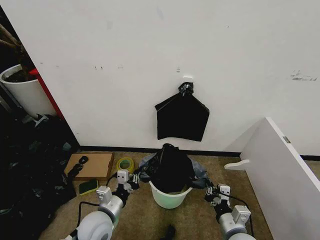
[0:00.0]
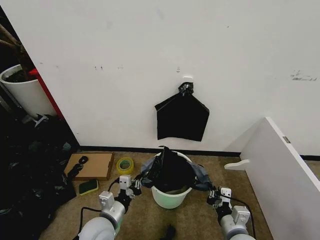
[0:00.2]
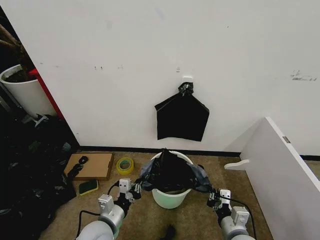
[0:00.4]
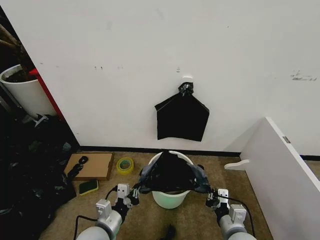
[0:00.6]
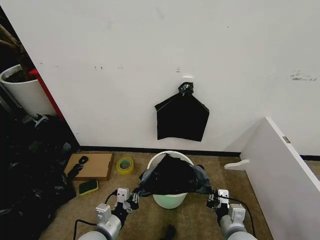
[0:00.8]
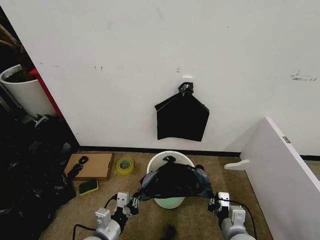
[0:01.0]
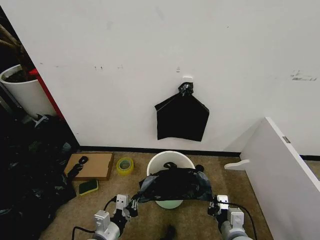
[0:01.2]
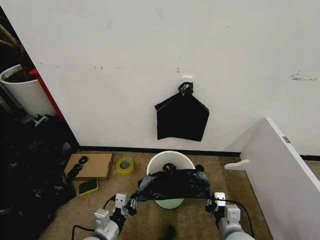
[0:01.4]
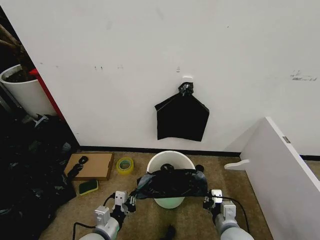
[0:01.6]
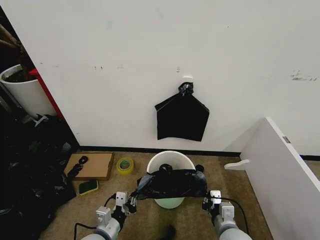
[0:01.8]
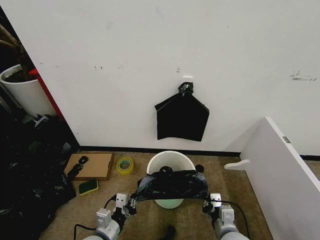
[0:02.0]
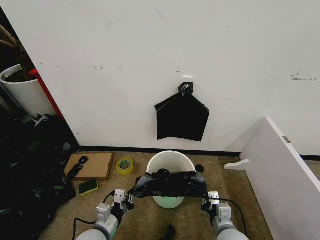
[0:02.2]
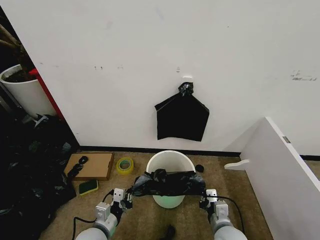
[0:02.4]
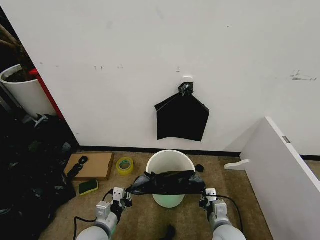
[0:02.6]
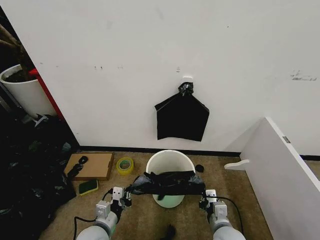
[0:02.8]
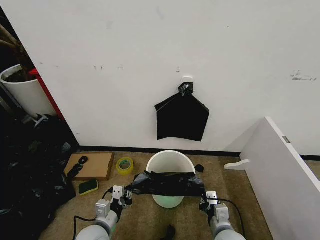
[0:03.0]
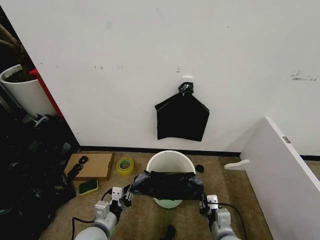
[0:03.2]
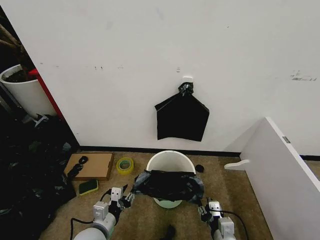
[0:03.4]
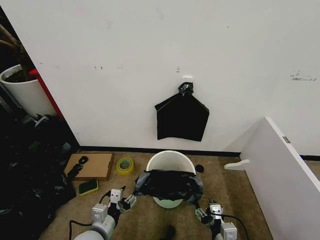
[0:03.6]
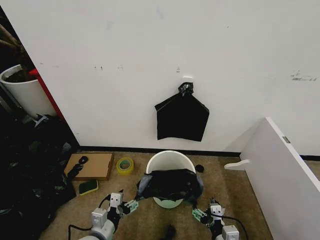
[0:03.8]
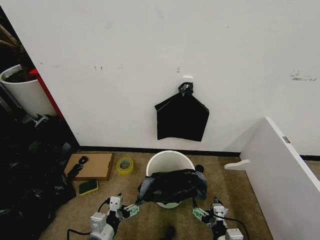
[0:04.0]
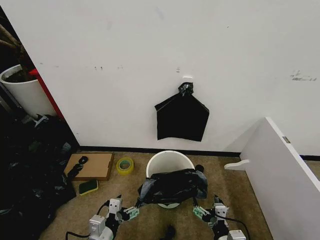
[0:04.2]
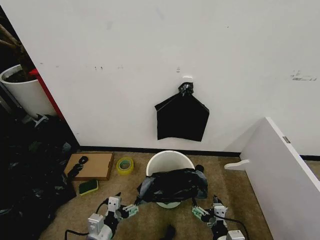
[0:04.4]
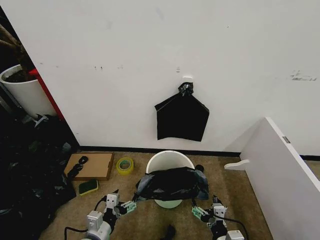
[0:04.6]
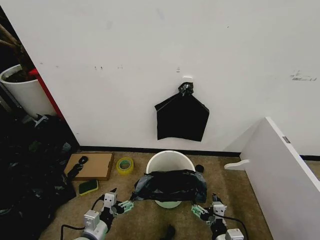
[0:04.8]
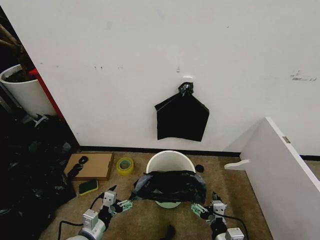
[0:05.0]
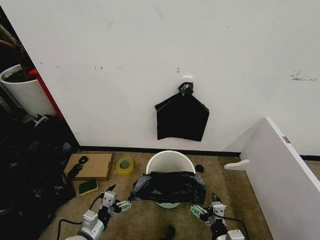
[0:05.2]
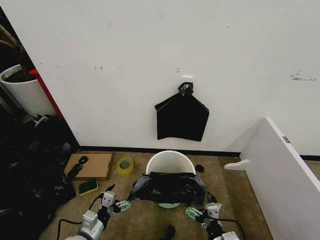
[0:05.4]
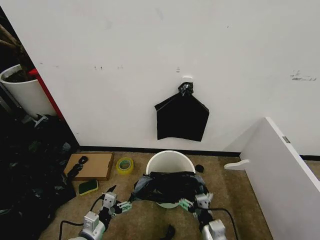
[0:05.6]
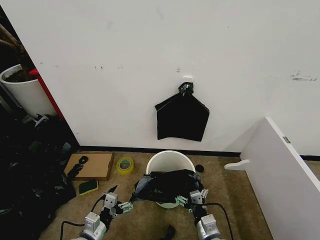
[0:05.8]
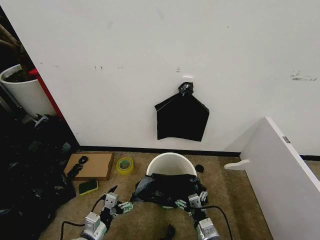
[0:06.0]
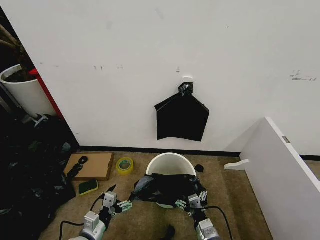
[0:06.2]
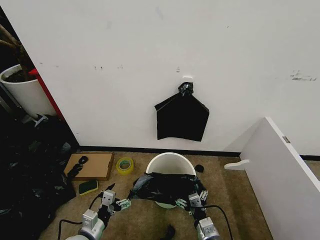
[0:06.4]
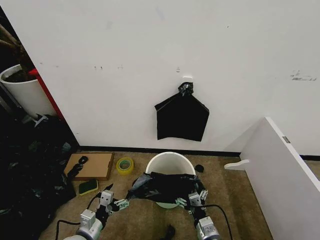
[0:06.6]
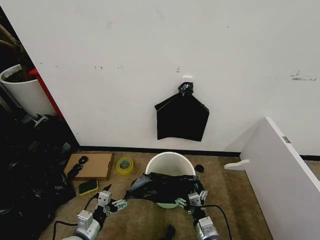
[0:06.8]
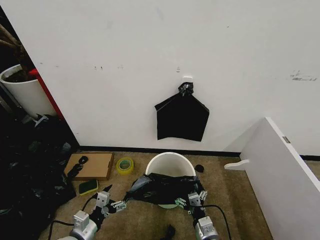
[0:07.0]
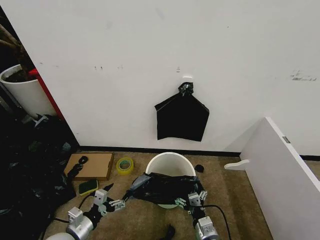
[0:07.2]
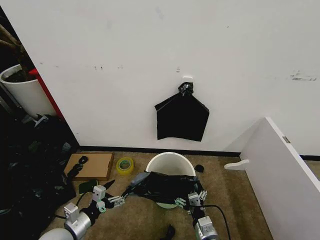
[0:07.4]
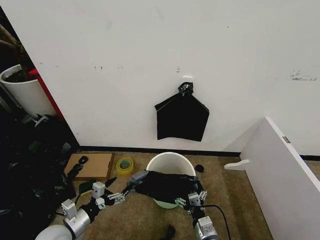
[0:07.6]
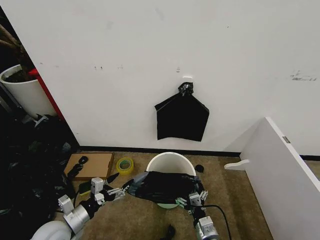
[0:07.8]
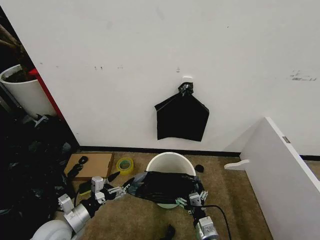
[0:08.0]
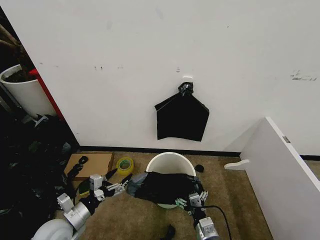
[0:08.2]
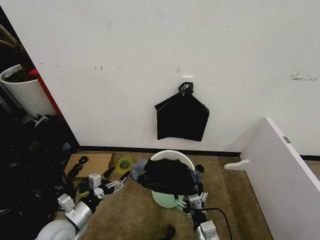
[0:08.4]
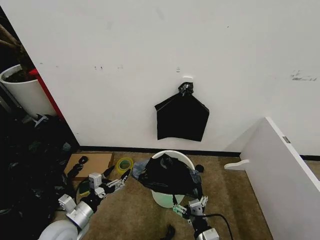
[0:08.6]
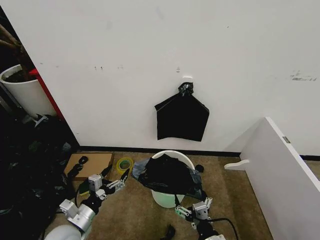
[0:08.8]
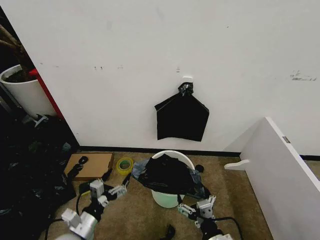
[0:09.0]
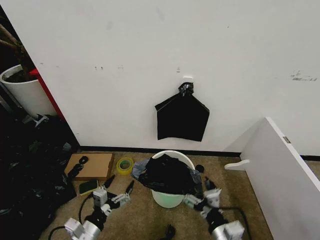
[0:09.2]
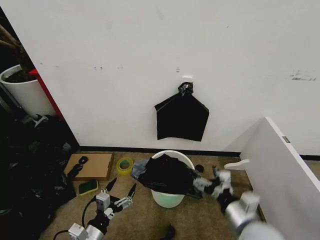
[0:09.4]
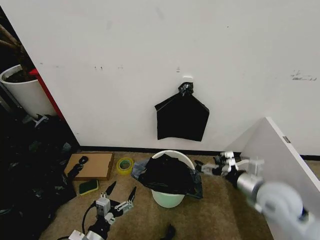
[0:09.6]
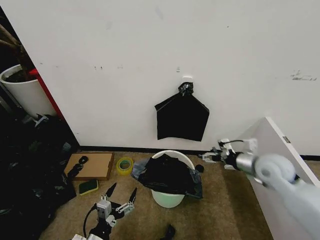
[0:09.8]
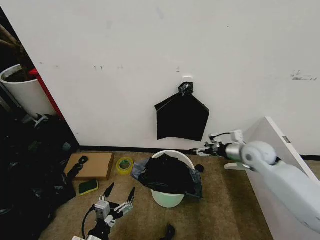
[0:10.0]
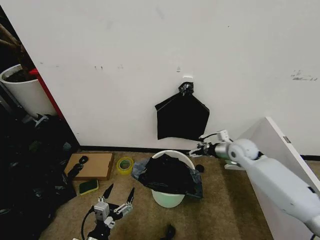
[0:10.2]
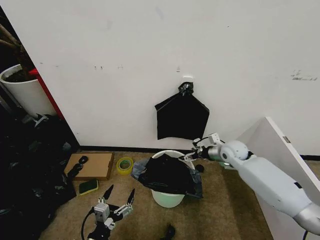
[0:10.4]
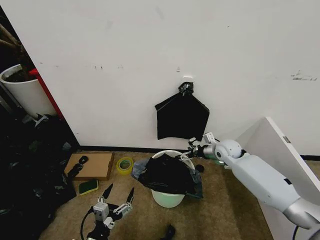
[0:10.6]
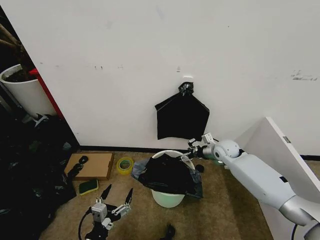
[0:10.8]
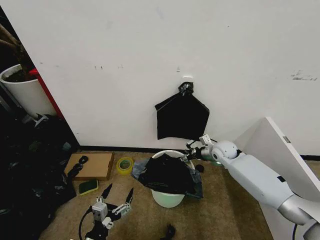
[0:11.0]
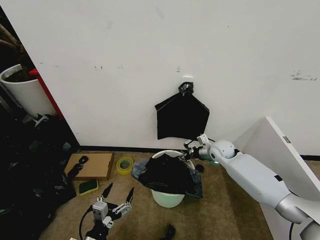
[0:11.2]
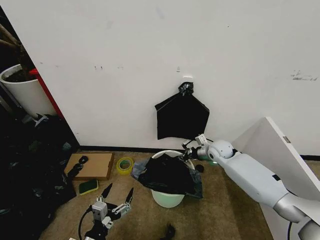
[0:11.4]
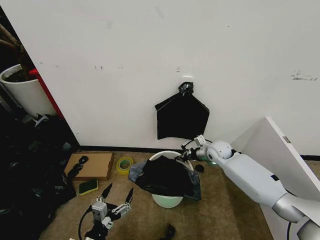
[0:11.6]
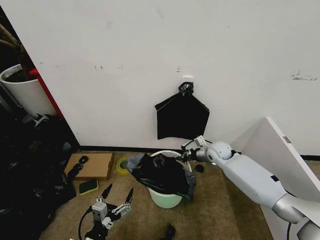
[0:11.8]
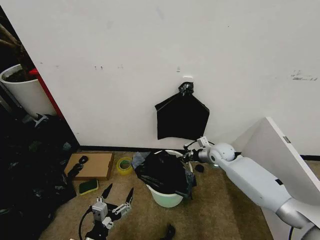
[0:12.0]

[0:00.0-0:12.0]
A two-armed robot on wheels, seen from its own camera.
Task of the whole recording: Place the garbage bag over the trash bin.
0:00.0 to 0:01.6: The left gripper shifts approximately 5 cm backward.
0:01.6 to 0:03.0: The grippers move only a little.
0:03.0 to 0:04.4: The two grippers go roughly 5 cm backward. The left gripper opens its fingers; the right gripper opens its fingers.
0:04.4 to 0:06.0: The left gripper ends up about 5 cm from where it was. Meanwhile the right gripper moves some 10 cm.
0:06.0 to 0:07.6: The left gripper is displaced to the left by roughly 5 cm.
0:07.6 to 0:09.0: The right gripper moves upward and backward, roughly 10 cm. The left gripper ends up roughly 5 cm from where it was.
0:09.0 to 0:10.4: The left gripper shifts some 5 cm backward. Meanwhile the right gripper is displaced forward by about 35 cm.
0:10.4 to 0:12.0: The right gripper shifts by about 5 cm, and closes.

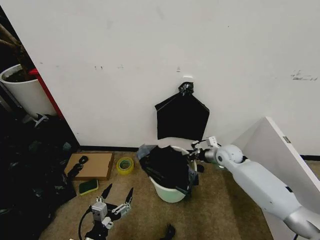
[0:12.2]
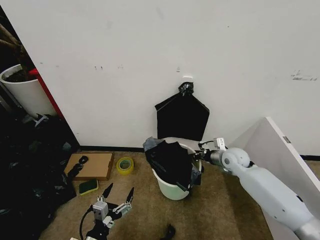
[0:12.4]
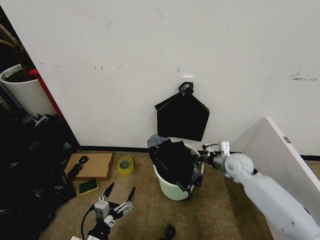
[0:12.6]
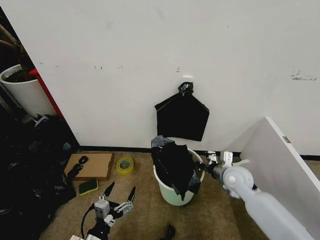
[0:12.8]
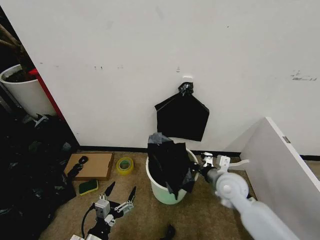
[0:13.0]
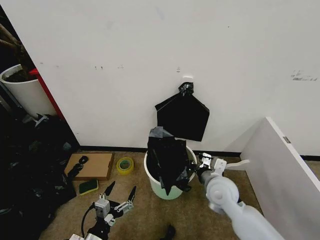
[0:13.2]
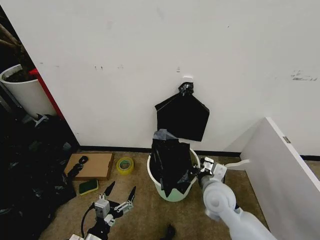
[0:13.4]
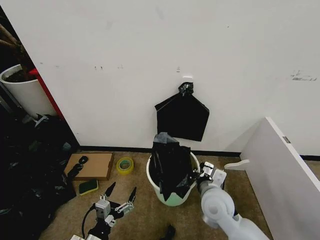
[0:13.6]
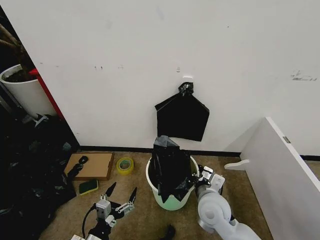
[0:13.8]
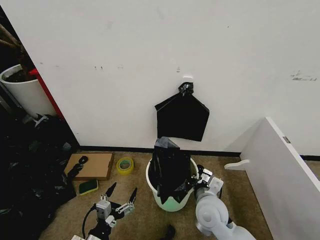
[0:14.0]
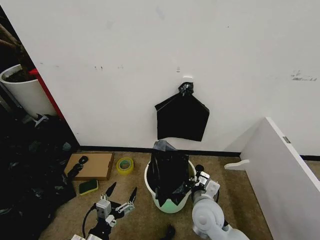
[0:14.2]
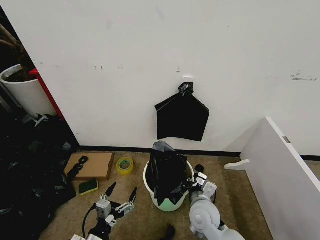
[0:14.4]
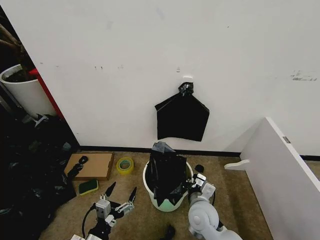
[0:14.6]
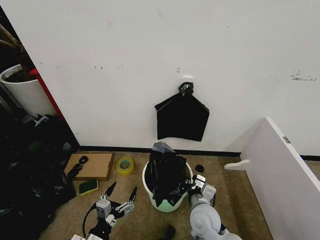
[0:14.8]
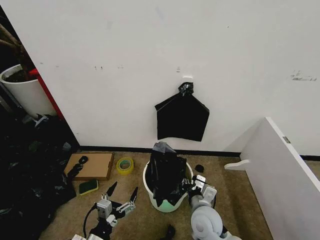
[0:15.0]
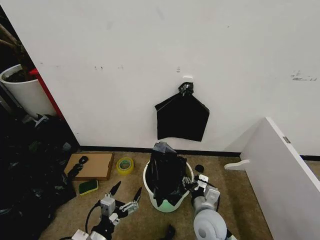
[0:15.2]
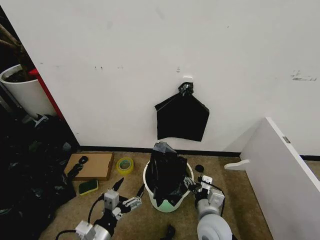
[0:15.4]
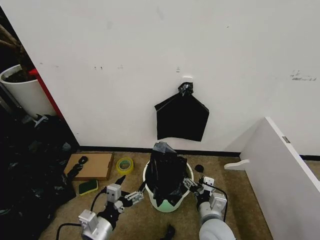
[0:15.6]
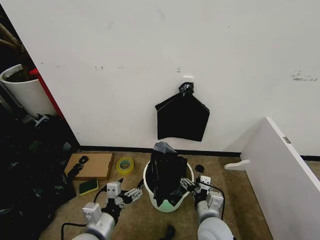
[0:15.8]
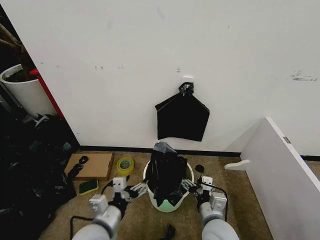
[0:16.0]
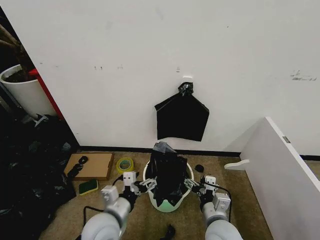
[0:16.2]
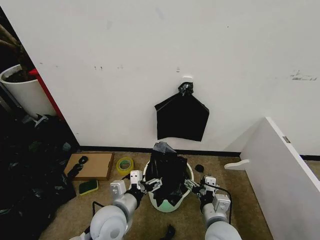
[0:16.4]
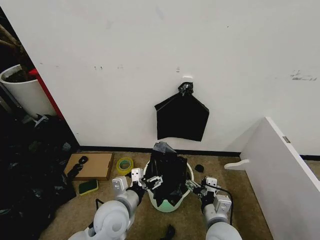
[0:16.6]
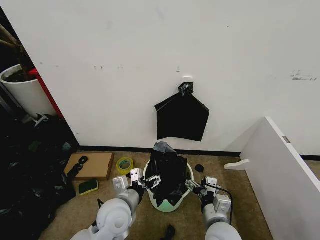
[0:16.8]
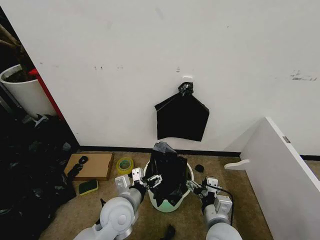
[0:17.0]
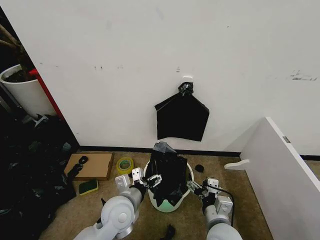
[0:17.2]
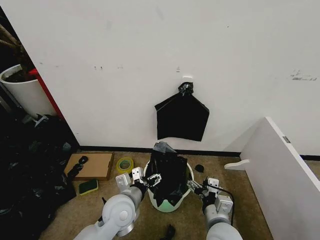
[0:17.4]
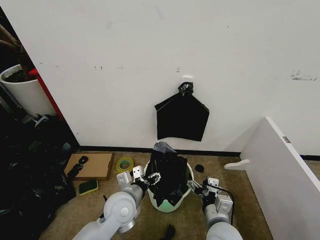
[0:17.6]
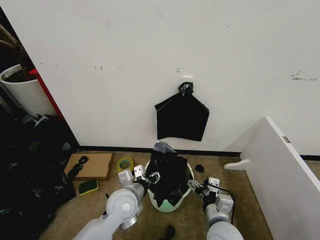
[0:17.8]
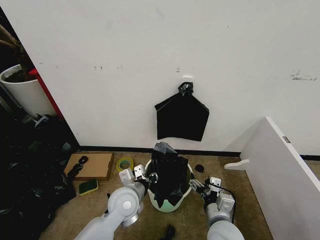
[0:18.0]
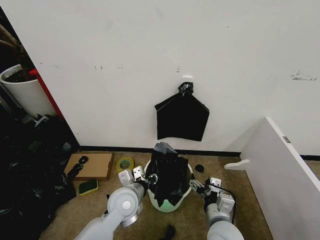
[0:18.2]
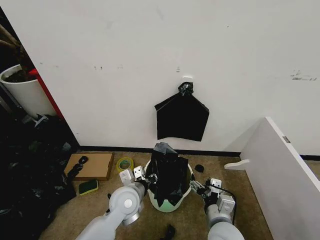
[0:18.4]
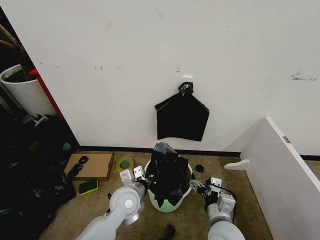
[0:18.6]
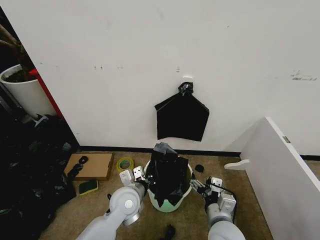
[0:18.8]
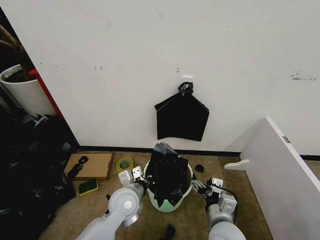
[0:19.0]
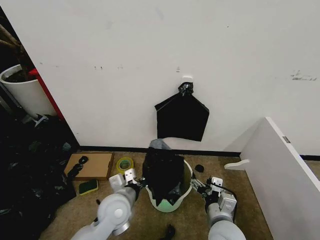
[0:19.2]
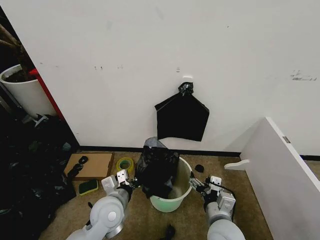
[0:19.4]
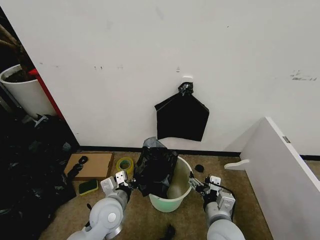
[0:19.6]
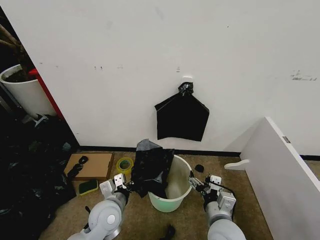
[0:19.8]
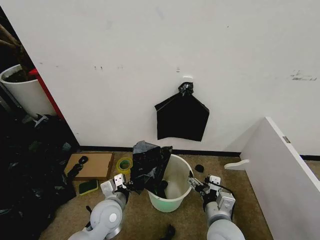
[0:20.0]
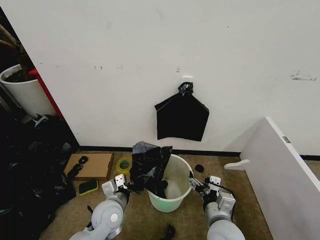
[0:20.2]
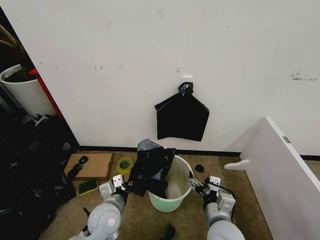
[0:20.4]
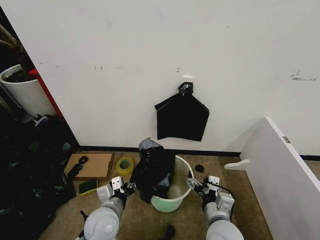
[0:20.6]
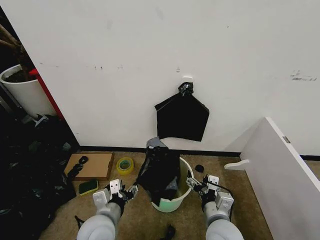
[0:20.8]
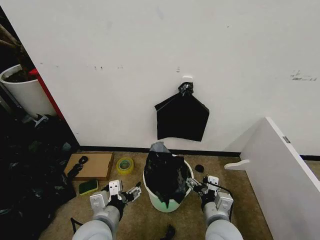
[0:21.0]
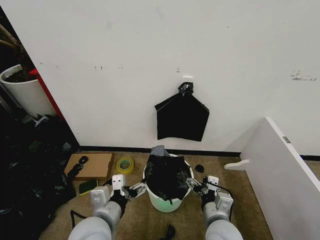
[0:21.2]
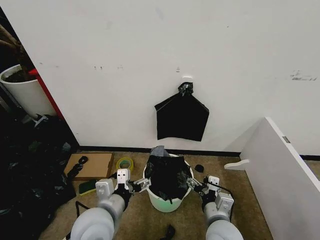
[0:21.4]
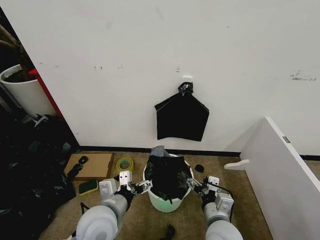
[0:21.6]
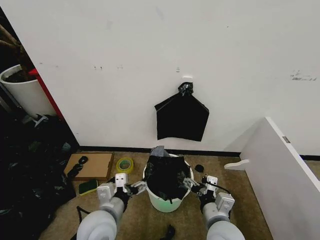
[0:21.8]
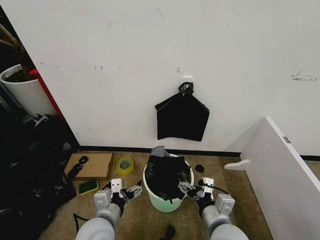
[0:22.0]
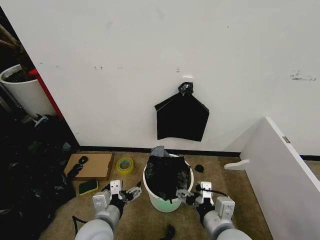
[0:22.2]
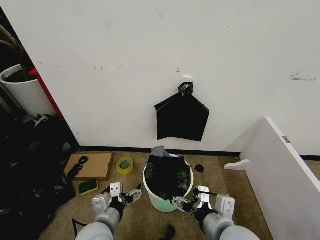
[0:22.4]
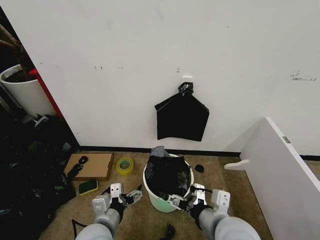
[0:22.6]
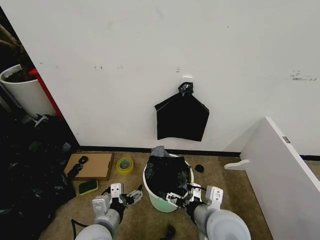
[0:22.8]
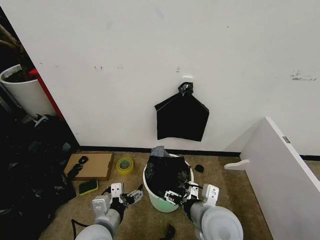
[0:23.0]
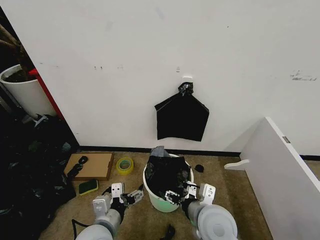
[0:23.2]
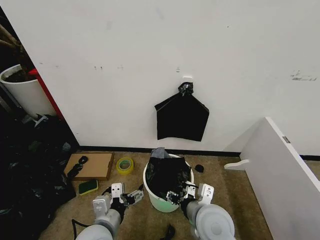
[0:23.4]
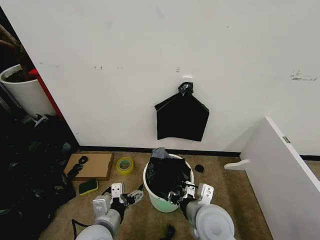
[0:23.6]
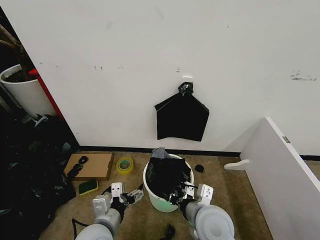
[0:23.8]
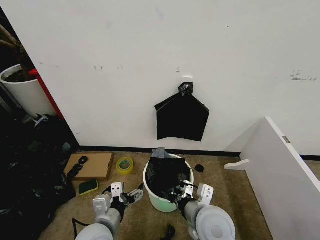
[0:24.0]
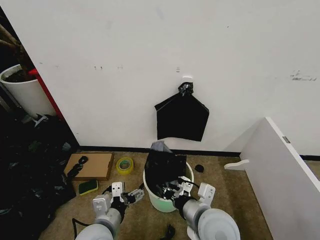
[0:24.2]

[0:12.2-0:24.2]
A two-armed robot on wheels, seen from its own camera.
Task of the whole recording: Place the garbage bag over the trash bin.
0:12.2 to 0:13.8: The right gripper moves backward and to the left, roughly 25 cm.
0:13.8 to 0:15.2: The right gripper ends up some 5 cm from where it was, and opens.
0:15.2 to 0:16.6: The left gripper goes approximately 15 cm forward, to the right and upward, while the right gripper changes place by some 5 cm, and opens.
0:16.6 to 0:18.2: The left gripper ends up roughly 5 cm from where it was, and closes up.
0:18.2 to 0:19.8: The left gripper goes approximately 5 cm to the left, and closes.
0:19.8 to 0:21.2: The left gripper is displaced upward and backward by about 10 cm, and opens.
0:21.2 to 0:22.6: The left gripper heads downward, covering some 5 cm, while the right gripper shifts approximately 10 cm upward.
0:22.6 to 0:24.2: The right gripper closes its fingers.
